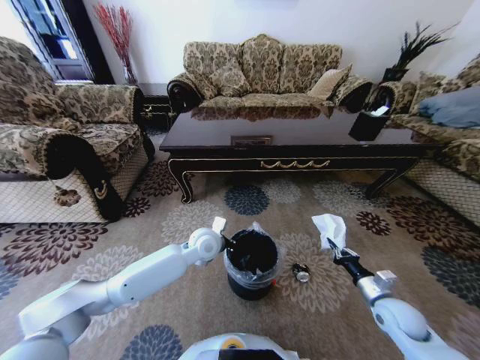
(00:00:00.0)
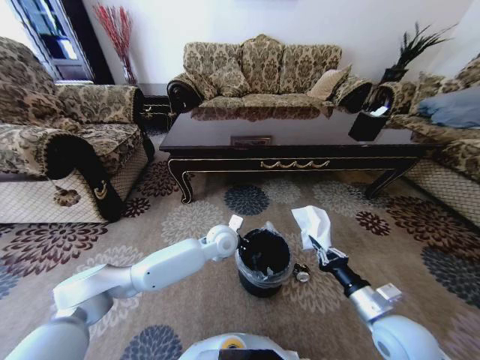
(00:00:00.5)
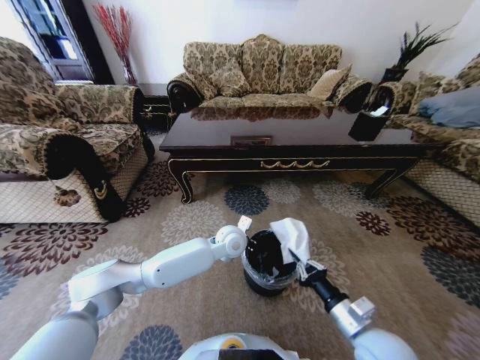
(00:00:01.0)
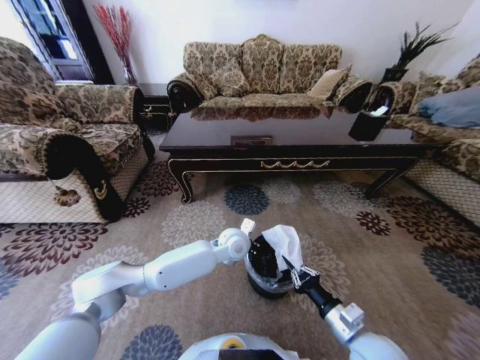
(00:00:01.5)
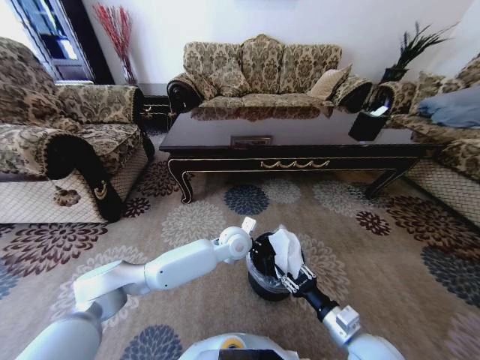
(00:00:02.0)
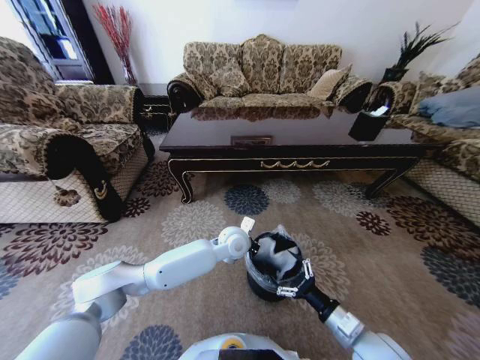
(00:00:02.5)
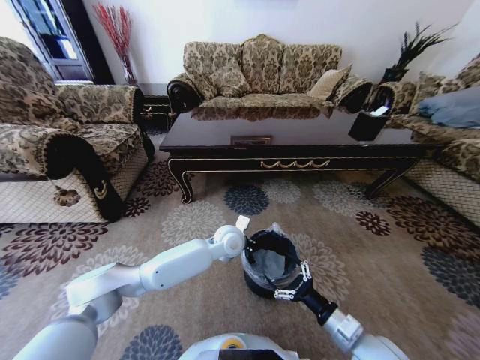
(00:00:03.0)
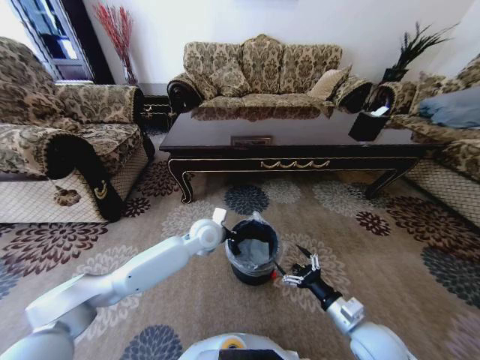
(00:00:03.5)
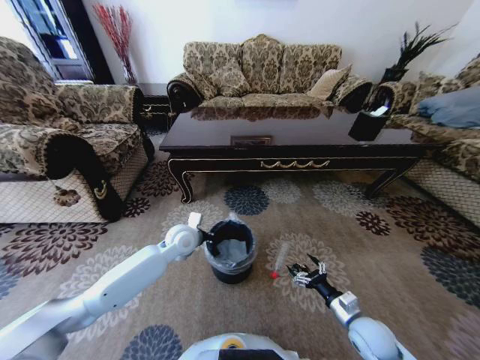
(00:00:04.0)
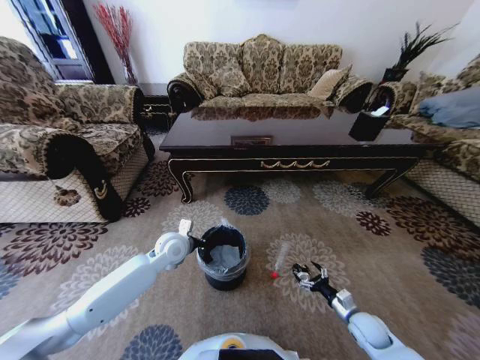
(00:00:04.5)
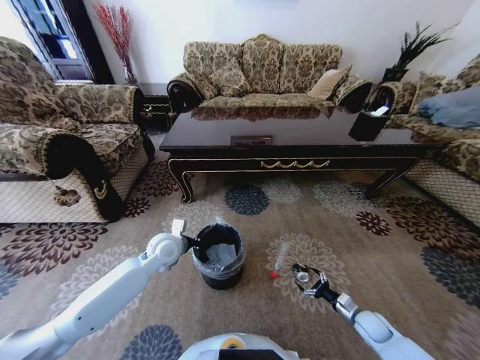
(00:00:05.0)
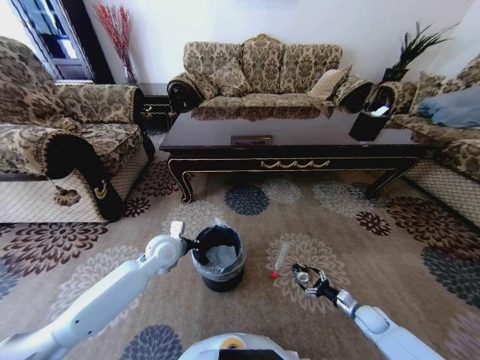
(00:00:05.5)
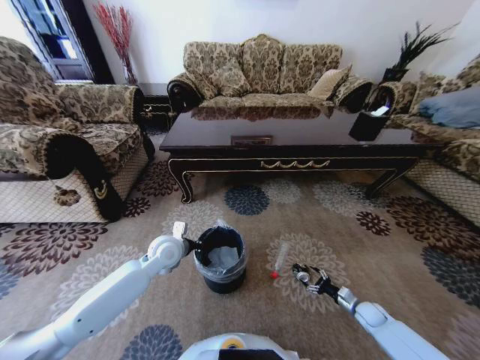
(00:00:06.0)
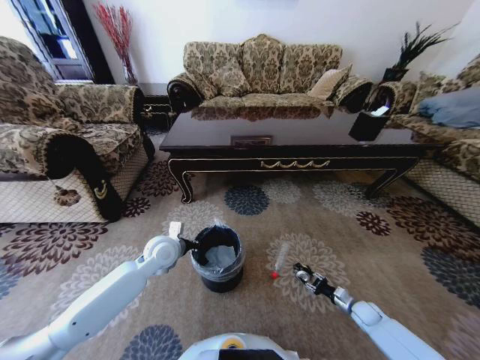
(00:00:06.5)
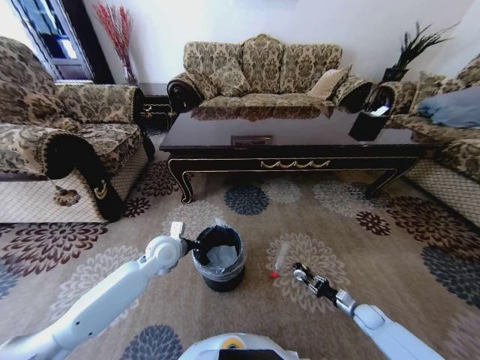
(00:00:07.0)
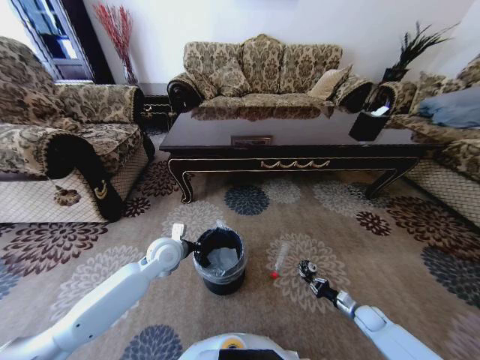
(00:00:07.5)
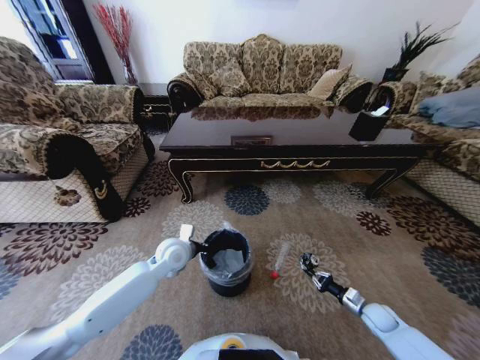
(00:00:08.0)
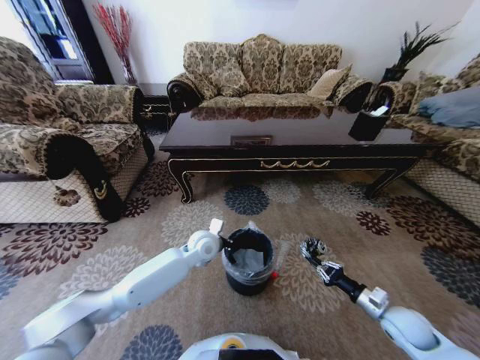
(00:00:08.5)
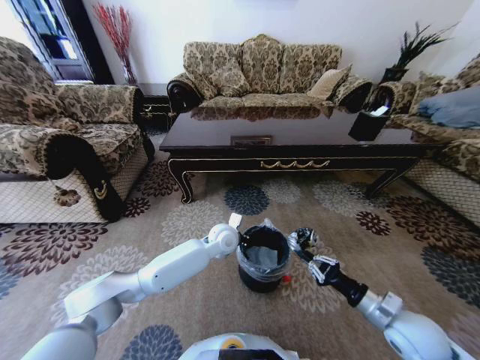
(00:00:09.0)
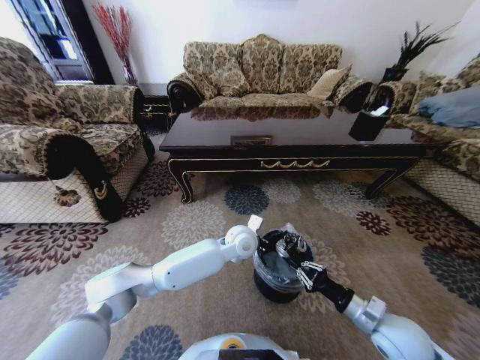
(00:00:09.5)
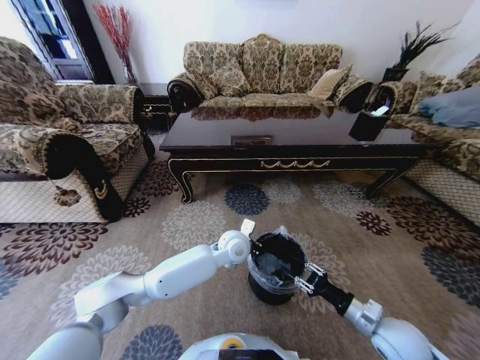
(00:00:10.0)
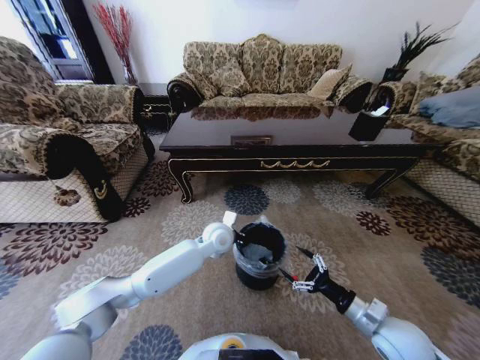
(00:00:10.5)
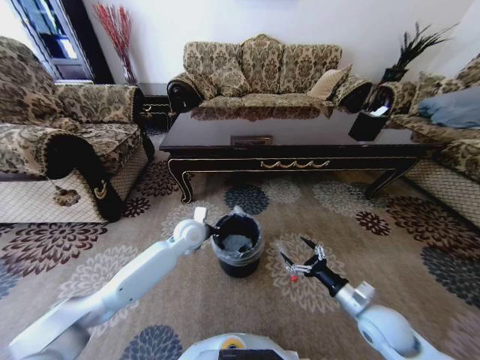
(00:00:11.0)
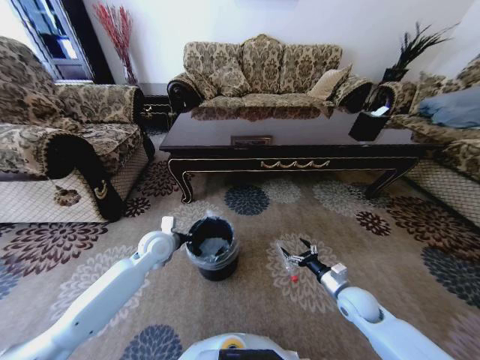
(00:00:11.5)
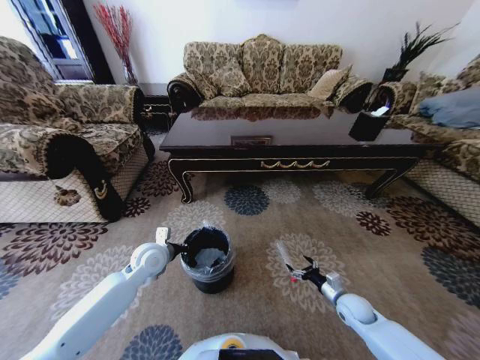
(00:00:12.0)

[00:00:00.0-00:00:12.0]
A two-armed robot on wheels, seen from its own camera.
Task of the whole recording: Move to the front of the table and pick up the trash from the floor, then place it into the trash bin.
00:00:00.0 to 00:00:02.0: The right gripper travels to the left and backward by approximately 15 cm, and opens. The left gripper heads to the right, covering roughly 10 cm.
00:00:02.0 to 00:00:04.0: The right gripper moves downward and to the right, approximately 10 cm, and opens its fingers. Meanwhile the left gripper travels to the left by approximately 15 cm.
00:00:04.0 to 00:00:06.0: The right gripper goes roughly 20 cm to the right, downward and forward; the left gripper moves about 5 cm.
00:00:06.0 to 00:00:08.0: The right gripper closes up.
00:00:08.0 to 00:00:10.0: The left gripper goes about 20 cm to the right. Meanwhile the right gripper heads upward, to the left and backward, covering approximately 20 cm.
00:00:10.0 to 00:00:12.0: The left gripper shifts about 25 cm to the left, while the right gripper is displaced downward and forward by roughly 15 cm, and opens its fingers.

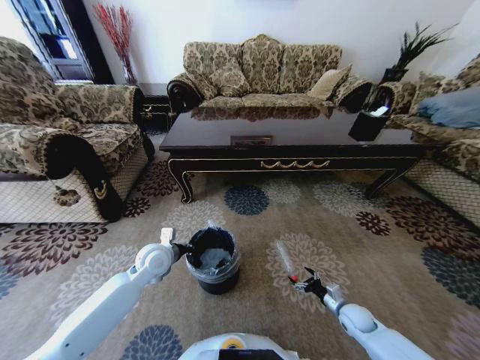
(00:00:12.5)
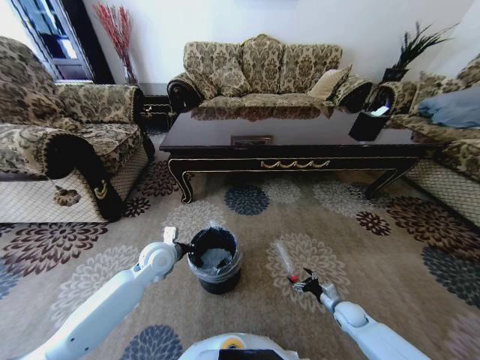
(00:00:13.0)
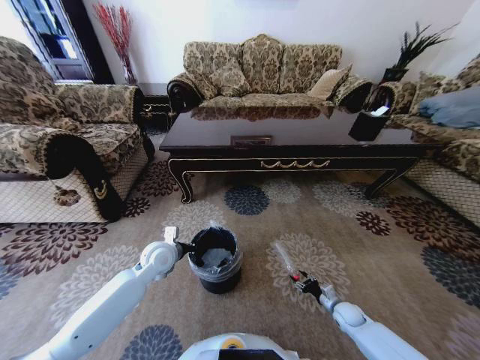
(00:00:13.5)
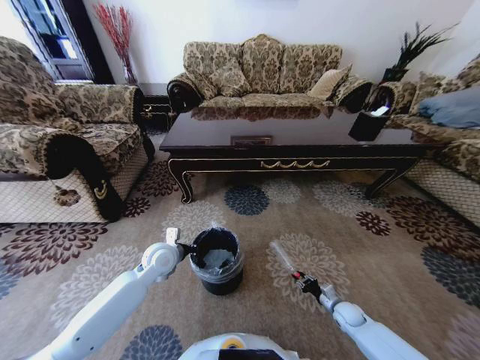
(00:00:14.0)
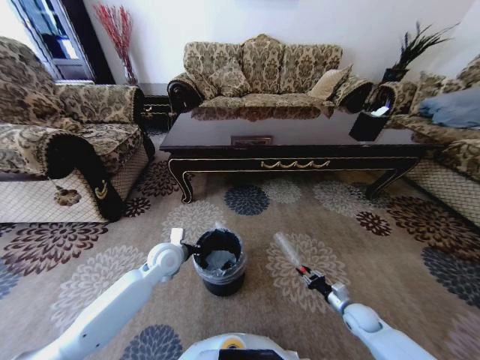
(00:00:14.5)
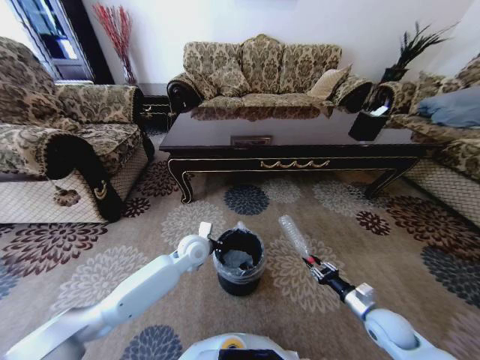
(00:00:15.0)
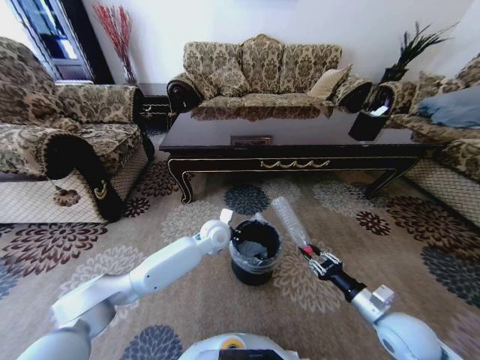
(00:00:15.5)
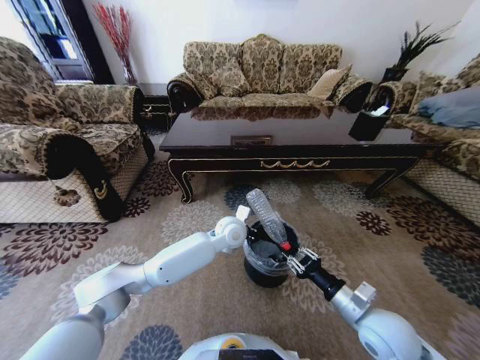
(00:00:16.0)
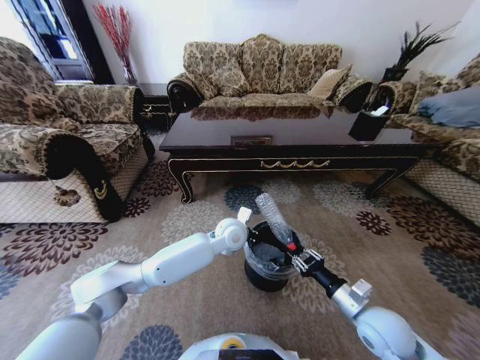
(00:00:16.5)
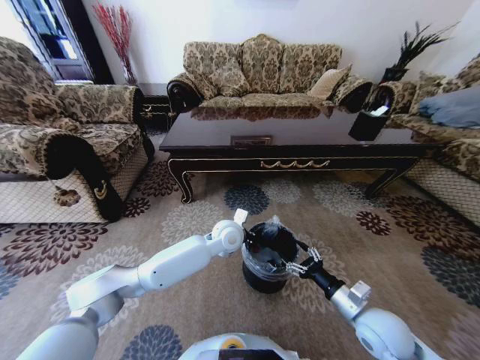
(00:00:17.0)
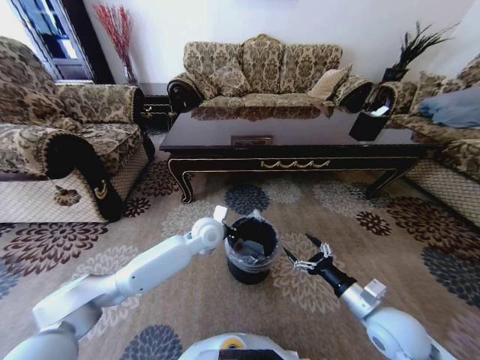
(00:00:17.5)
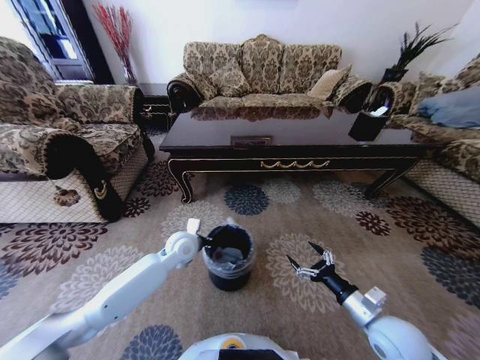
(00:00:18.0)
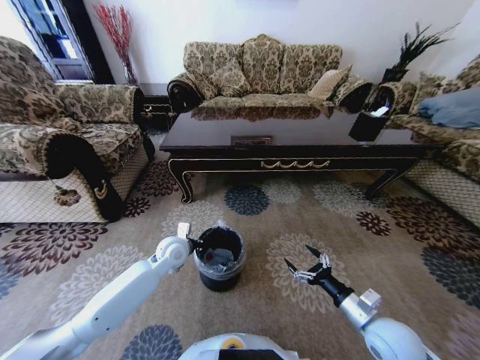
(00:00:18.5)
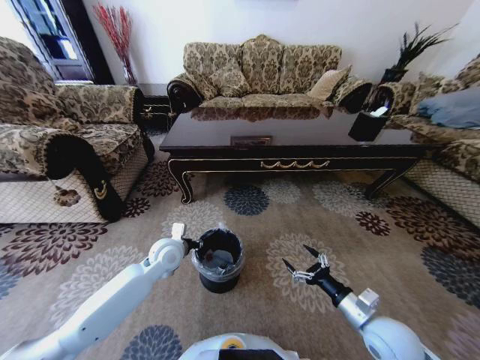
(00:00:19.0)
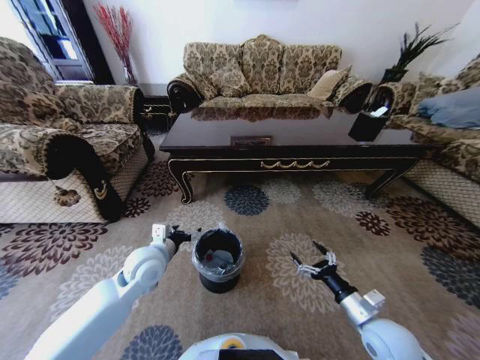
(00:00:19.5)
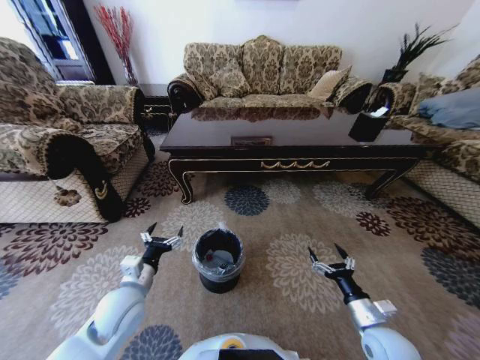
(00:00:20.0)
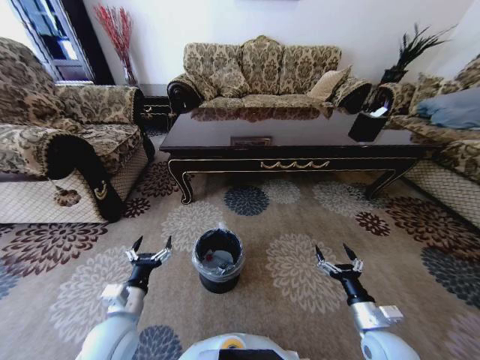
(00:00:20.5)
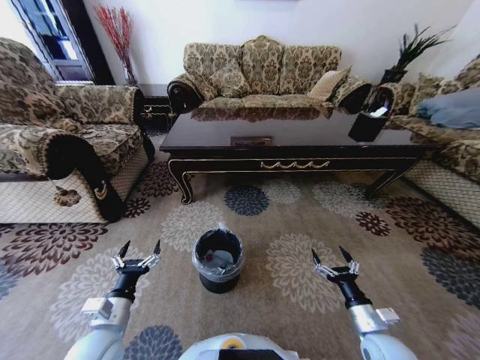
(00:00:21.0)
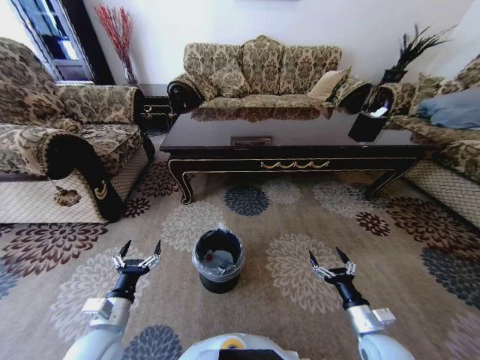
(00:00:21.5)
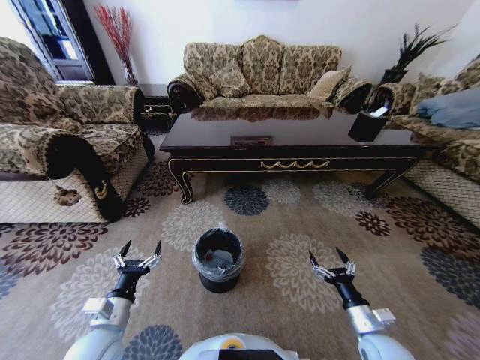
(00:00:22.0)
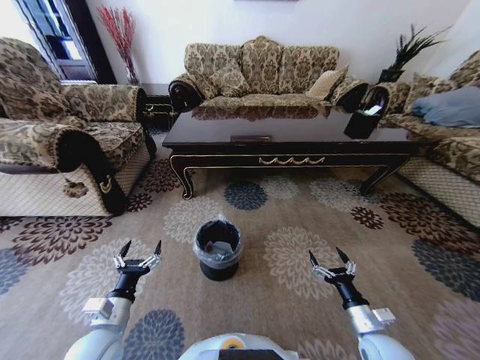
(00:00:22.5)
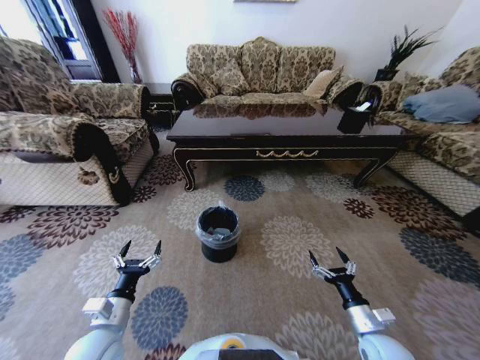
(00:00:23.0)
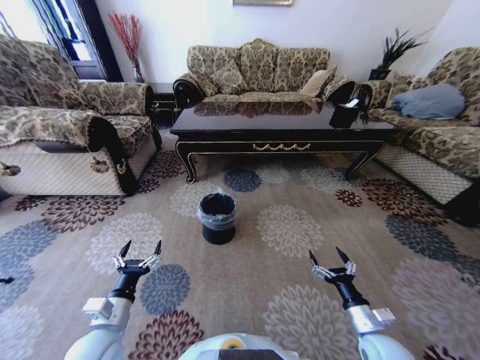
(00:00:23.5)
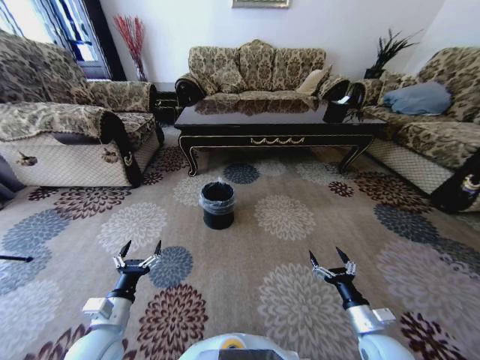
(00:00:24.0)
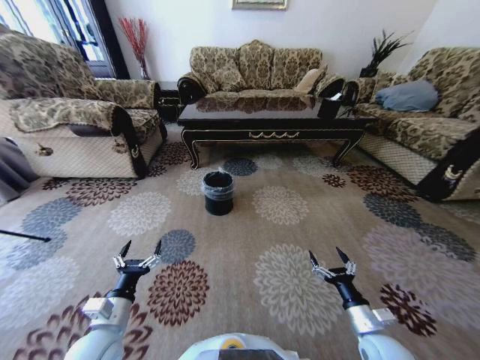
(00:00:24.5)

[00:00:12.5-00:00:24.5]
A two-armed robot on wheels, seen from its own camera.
Task of the whole recording: Move to the front of the table and pick up the trash from the floor, then place it into the trash bin.
00:00:12.5 to 00:00:14.5: The right gripper closes.
00:00:14.5 to 00:00:16.5: The right gripper shifts about 20 cm upward and to the left. The left gripper shifts approximately 20 cm to the right.
00:00:16.5 to 00:00:18.5: The right gripper opens. The left gripper travels to the left by about 20 cm.
00:00:18.5 to 00:00:20.5: The left gripper goes about 20 cm backward, and opens up.

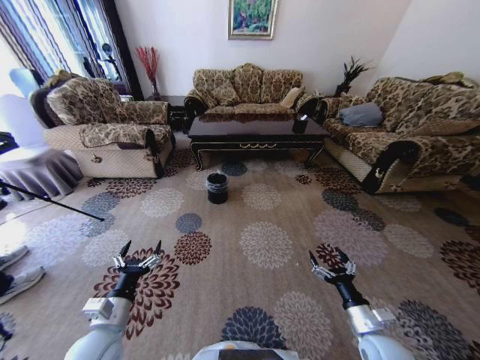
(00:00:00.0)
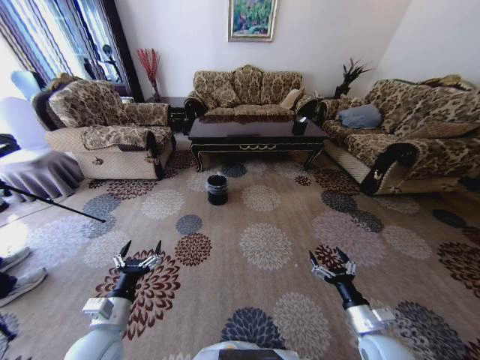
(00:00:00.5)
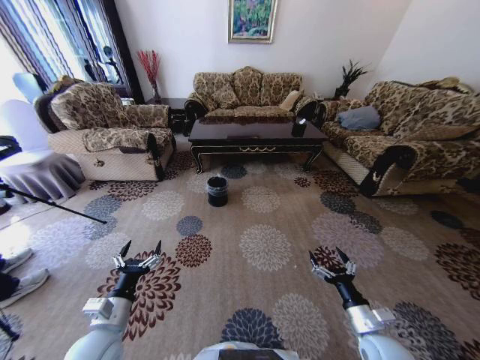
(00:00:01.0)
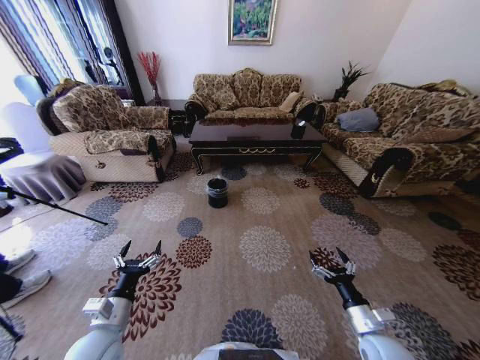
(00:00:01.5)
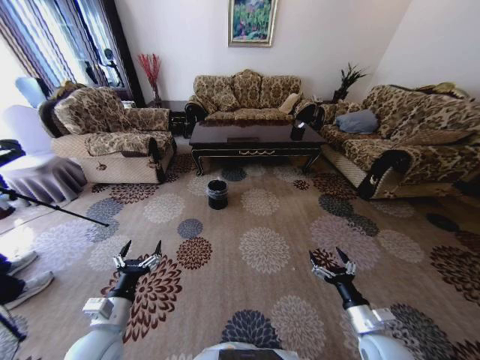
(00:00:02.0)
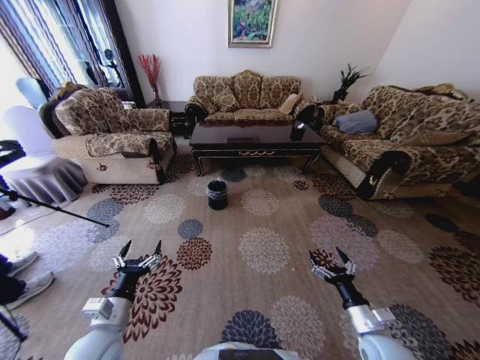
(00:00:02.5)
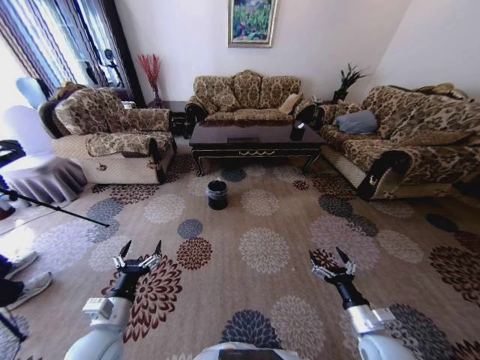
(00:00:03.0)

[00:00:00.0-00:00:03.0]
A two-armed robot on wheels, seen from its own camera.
Task of the whole recording: Move to the front of the table and pick up the trash from the floor, then place it into the trash bin.
00:00:01.5 to 00:00:03.0: The two grippers keep their place.
